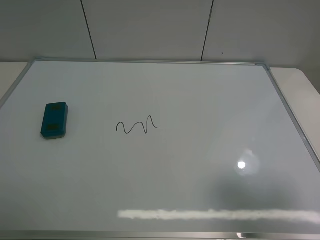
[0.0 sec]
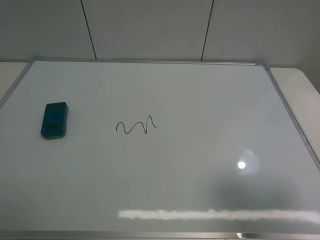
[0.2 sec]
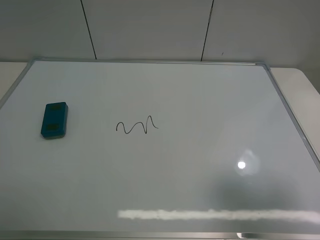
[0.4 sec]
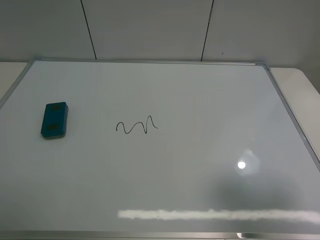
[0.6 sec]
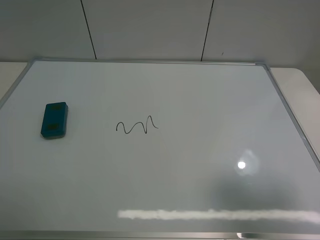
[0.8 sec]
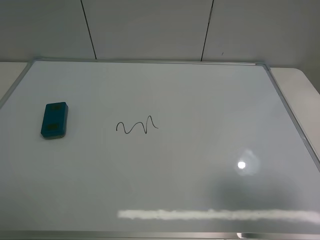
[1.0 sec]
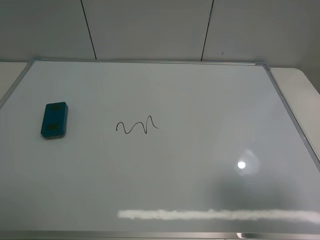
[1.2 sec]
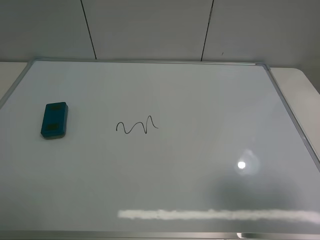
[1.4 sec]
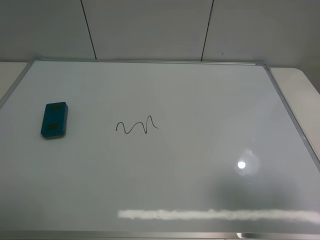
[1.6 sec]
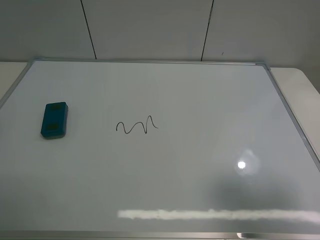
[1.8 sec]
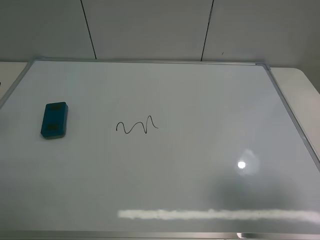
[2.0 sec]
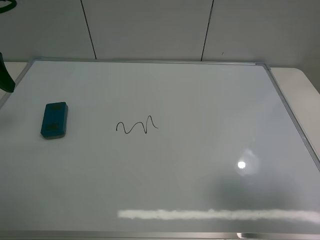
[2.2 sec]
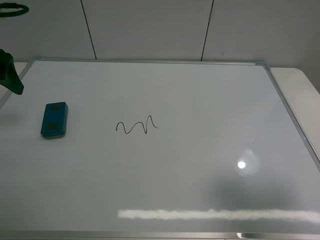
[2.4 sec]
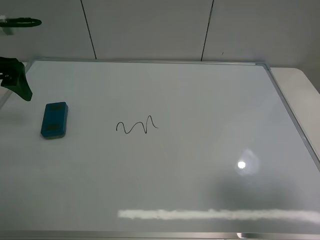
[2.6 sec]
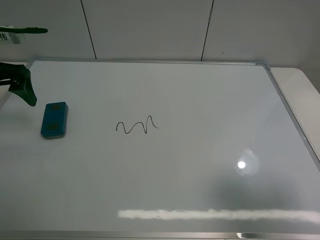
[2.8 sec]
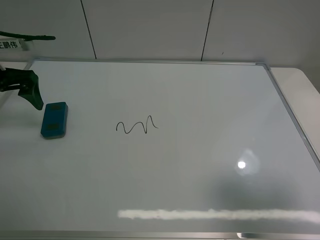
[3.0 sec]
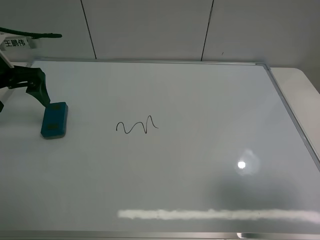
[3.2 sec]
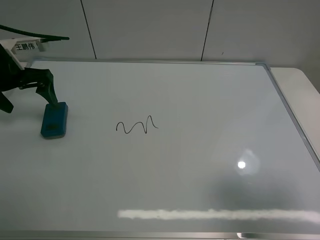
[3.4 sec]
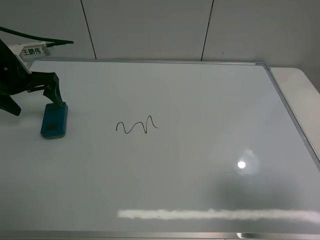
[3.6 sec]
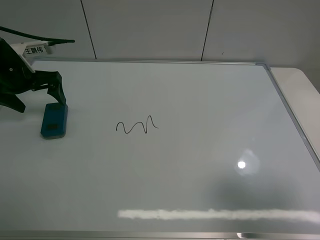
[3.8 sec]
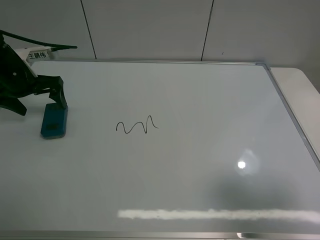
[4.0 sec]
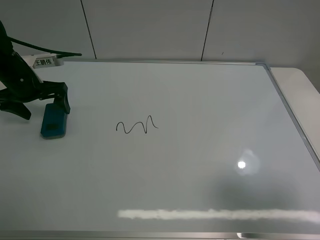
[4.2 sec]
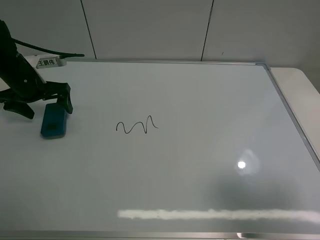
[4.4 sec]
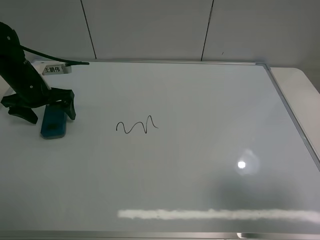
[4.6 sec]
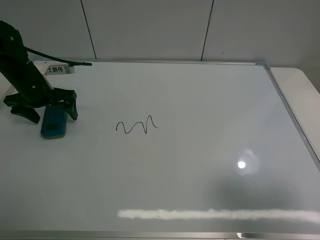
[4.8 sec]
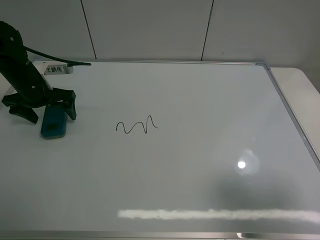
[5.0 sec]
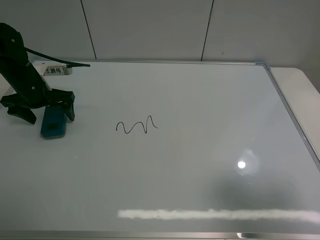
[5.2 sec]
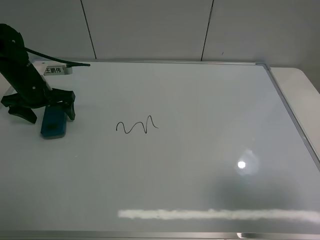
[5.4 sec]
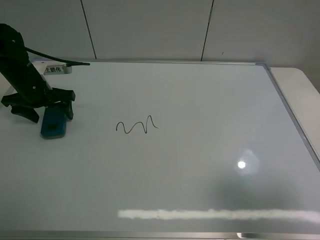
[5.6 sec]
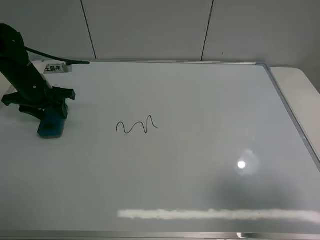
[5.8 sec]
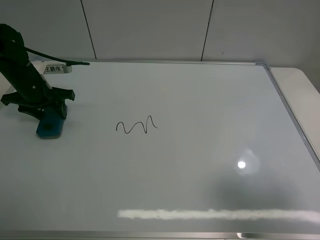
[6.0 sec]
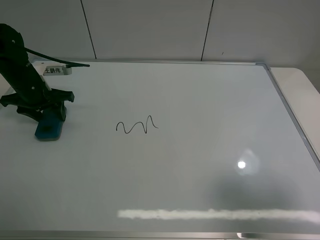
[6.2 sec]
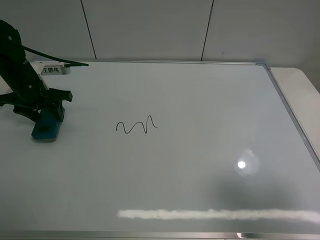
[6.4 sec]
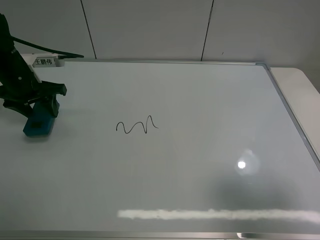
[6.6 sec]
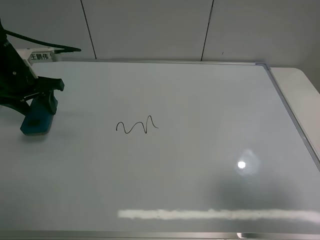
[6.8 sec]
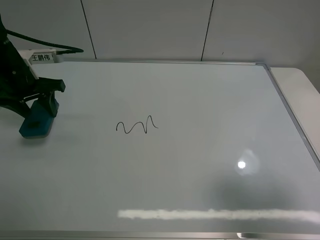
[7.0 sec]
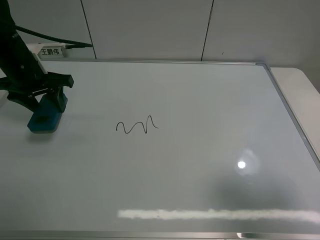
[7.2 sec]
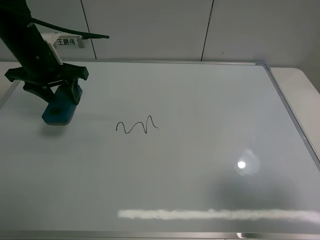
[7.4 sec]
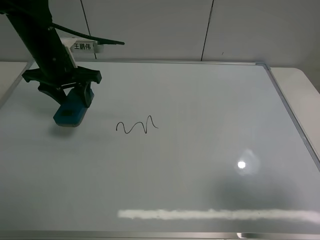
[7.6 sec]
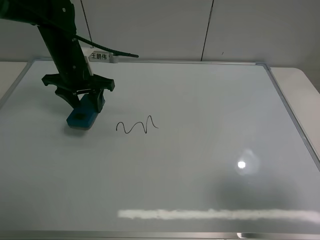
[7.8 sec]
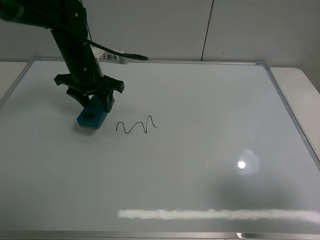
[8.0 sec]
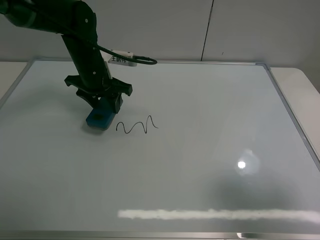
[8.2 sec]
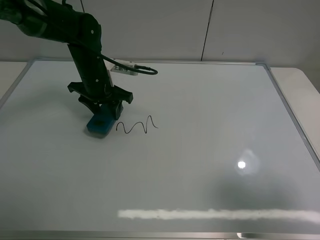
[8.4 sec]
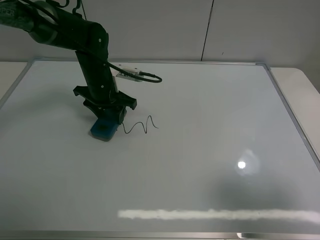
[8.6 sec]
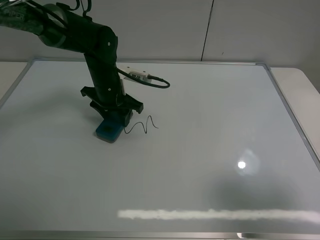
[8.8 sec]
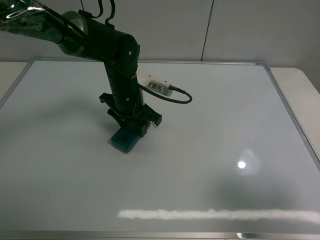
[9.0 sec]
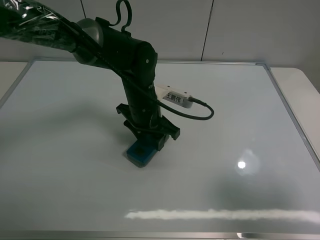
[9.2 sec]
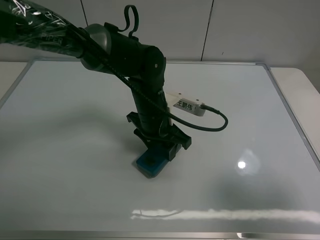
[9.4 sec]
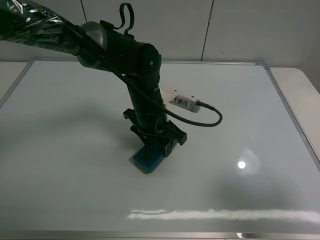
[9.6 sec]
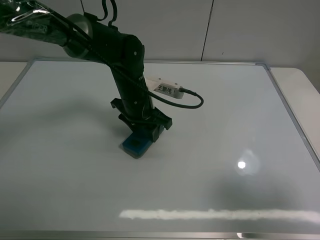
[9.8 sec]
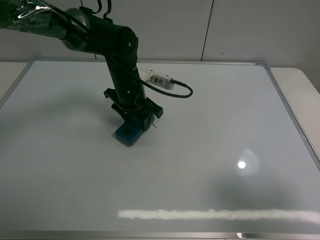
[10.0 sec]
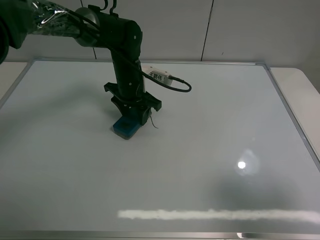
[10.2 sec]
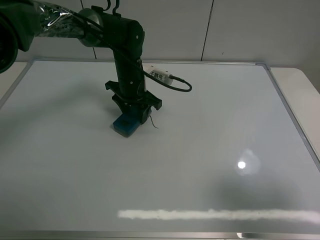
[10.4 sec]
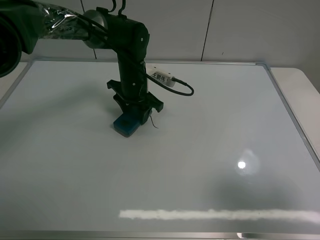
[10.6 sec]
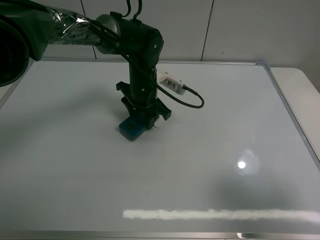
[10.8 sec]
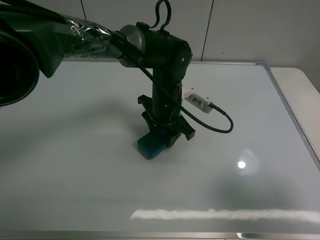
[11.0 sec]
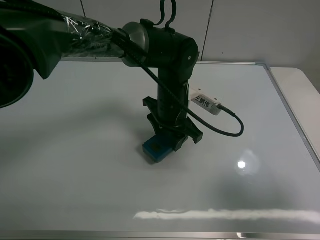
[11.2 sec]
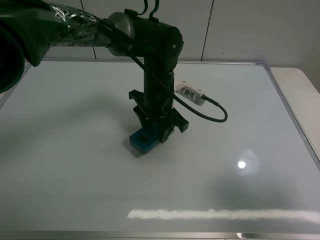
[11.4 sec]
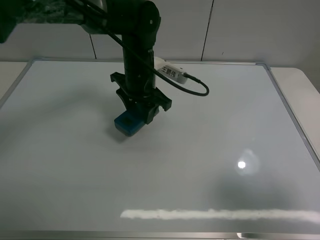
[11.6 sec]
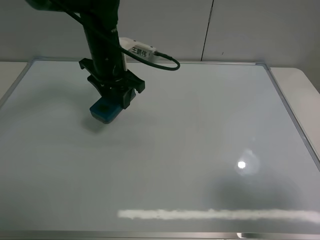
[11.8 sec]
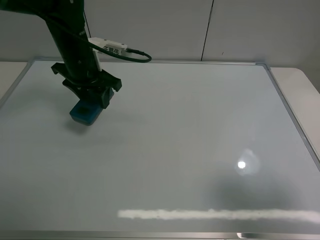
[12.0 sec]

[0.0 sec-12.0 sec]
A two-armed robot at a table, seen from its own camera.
Task of the whole recording: use the left claw to pick up the whiteboard eraser, wipe the notes on the whiteboard clean, and then put them back in place.
Step, 0.0 sec to 5.8 sec: Grasp the eraser with the left gripper.
Step, 6.0 sec to 11.0 sec: Grasp the eraser and wipe the blackboard with the left gripper.
1.6 sec to 3.0 sec: The left gripper is displaced forward and downward by some 20 cm.
3.0 sec to 4.4 sec: The left gripper moves downward and forward, roughly 10 cm.
4.4 sec to 6.0 sec: The left gripper closes.
6.0 sec to 7.6 sec: The left gripper shifts approximately 10 cm to the right and upward.
7.6 sec to 9.0 sec: The left gripper shifts about 15 cm to the right and downward.
9.0 sec to 10.4 sec: The left gripper heads forward, covering about 5 cm.
10.4 sec to 12.0 sec: The left gripper travels to the left and upward by approximately 15 cm.

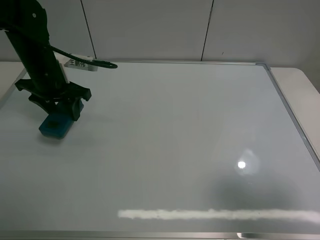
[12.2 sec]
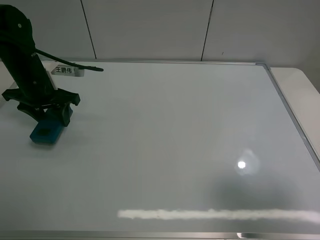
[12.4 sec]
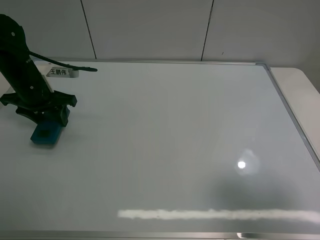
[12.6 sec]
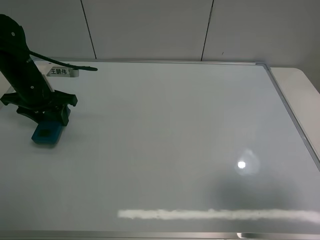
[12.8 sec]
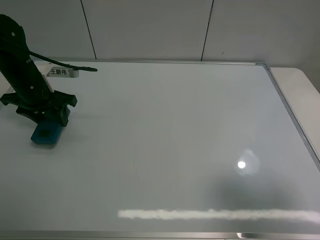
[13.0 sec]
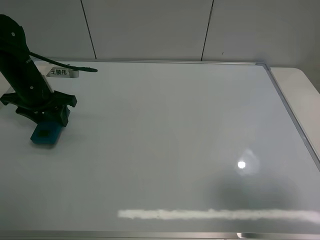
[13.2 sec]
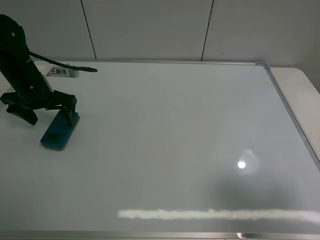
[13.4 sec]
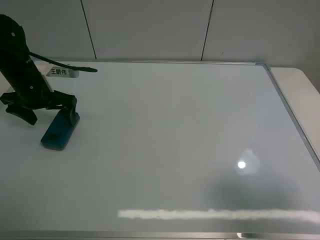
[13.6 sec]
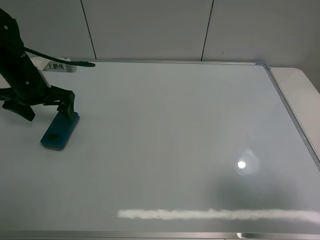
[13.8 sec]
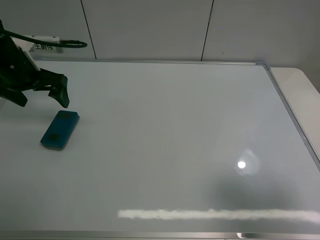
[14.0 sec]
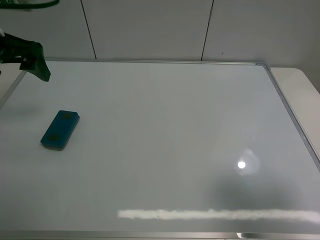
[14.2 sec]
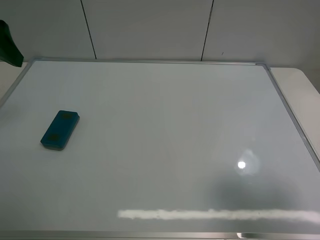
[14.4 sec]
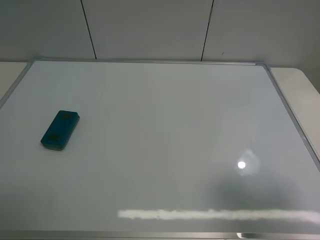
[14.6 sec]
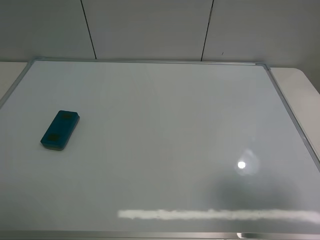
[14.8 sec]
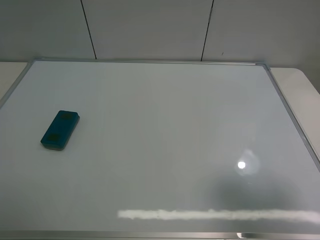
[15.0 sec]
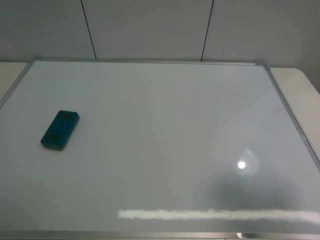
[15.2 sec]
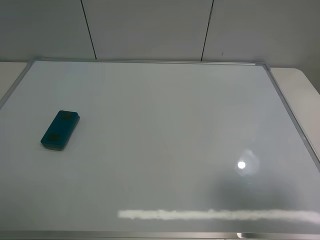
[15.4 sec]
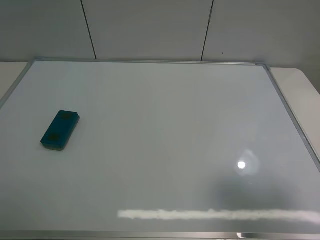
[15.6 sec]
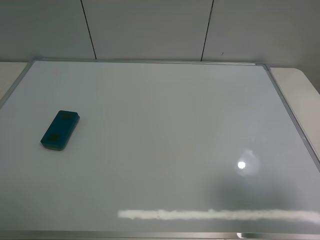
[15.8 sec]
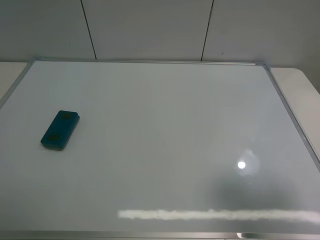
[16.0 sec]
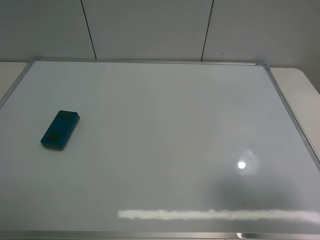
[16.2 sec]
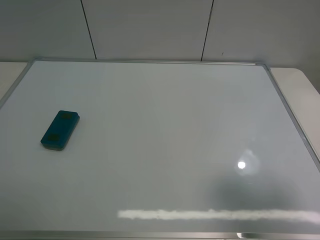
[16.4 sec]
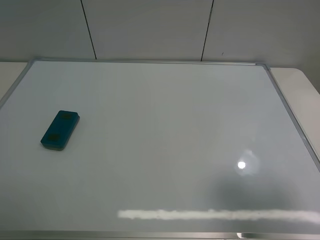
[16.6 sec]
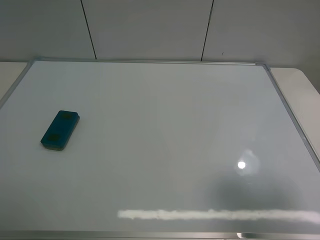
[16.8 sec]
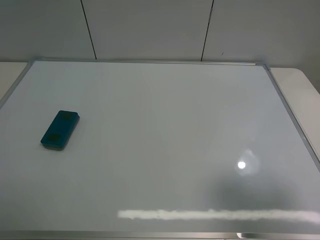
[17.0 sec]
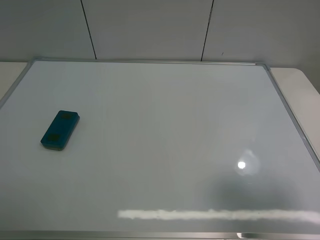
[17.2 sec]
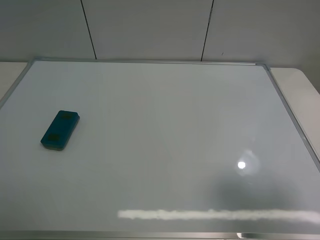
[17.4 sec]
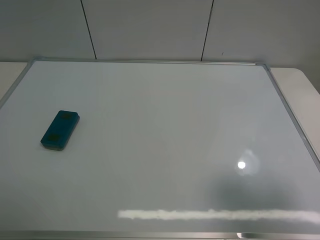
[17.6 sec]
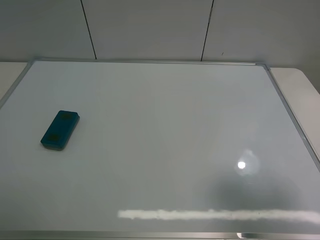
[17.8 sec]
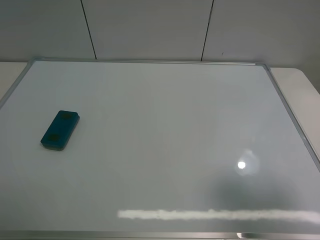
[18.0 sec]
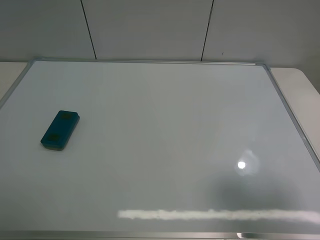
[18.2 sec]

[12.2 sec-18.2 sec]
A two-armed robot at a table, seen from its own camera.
Task of the whole recording: use the left claw to pick up the whiteboard eraser, wipe the notes on the whiteboard clean, and then put them back in place.
Step, 12.2 sec to 13.6 sec: Place the eraser with the left gripper.
12.2 sec to 13.8 sec: The left gripper opens its fingers.
13.8 sec to 15.2 sec: The left gripper travels backward and upward by about 40 cm.
